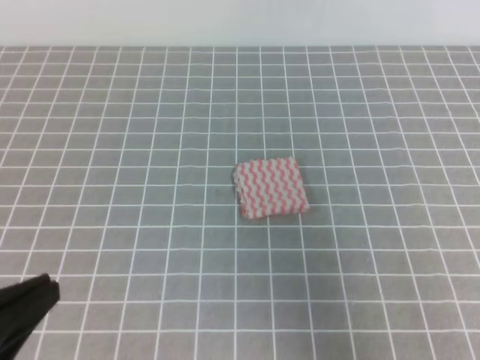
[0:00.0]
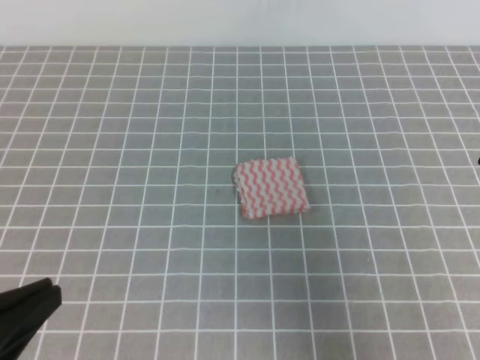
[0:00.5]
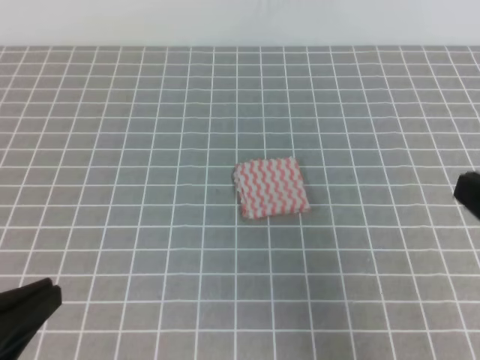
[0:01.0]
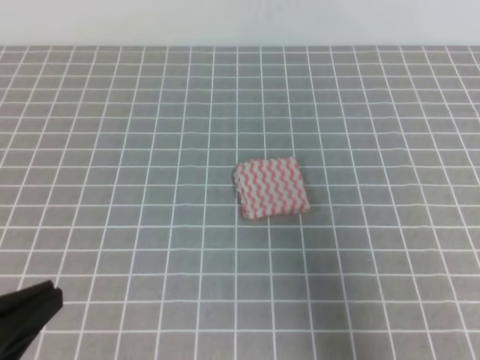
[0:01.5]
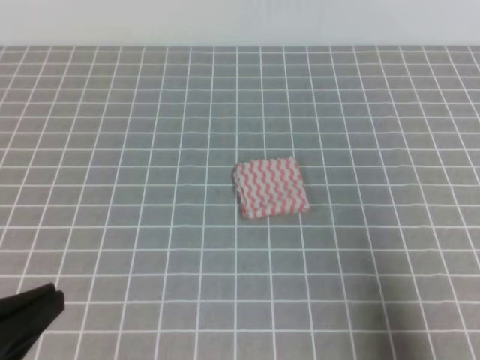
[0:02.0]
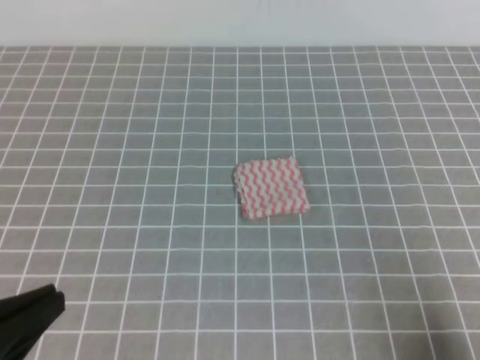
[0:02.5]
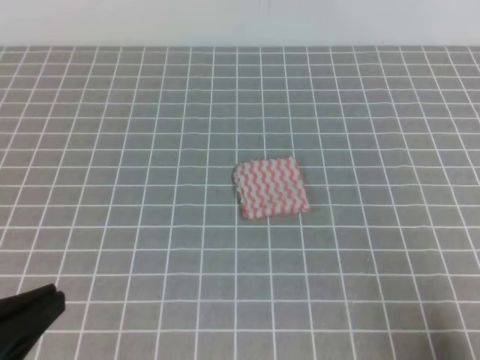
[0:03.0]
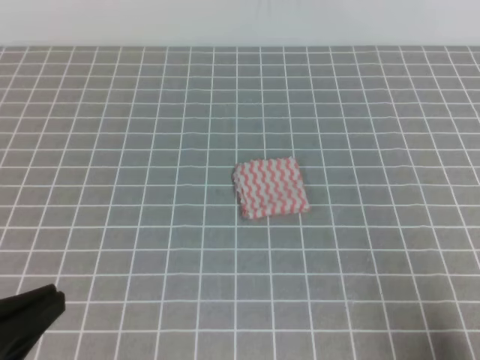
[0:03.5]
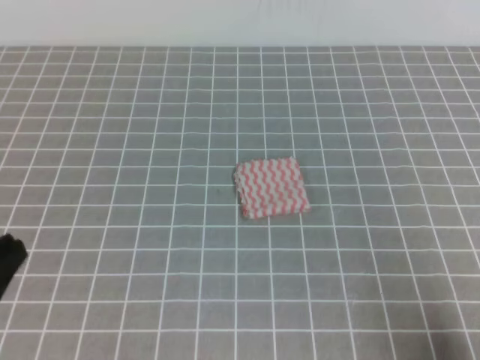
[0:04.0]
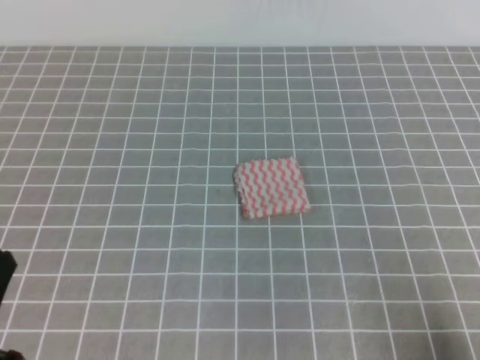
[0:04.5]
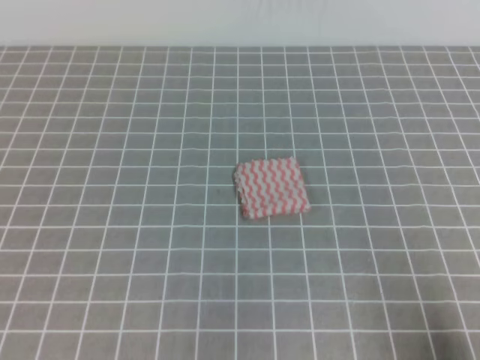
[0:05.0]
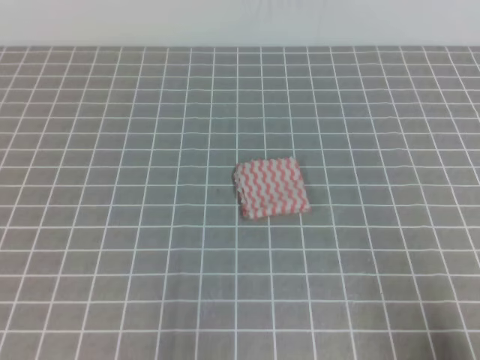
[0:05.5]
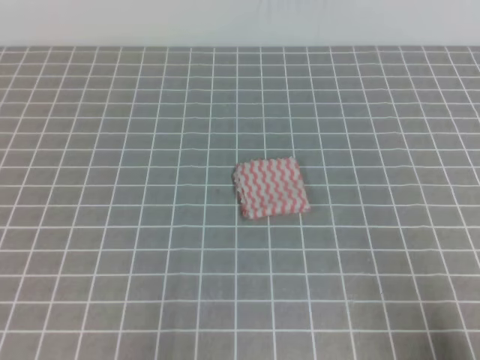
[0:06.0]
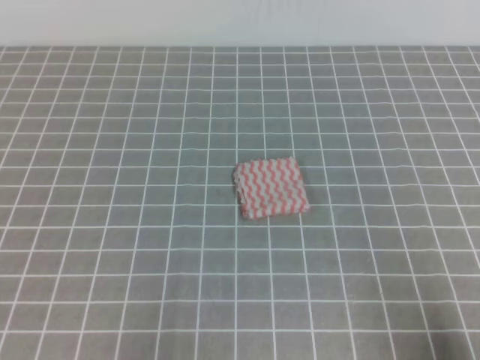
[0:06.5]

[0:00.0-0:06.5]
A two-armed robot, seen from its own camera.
Step, 0.0 to 6.5 s: Fold the towel.
0.0 to 2.0 s: The right gripper is displaced downward, backward and to the right by about 10 cm.
2.0 to 4.5 s: The right gripper heads downward, covering approximately 10 cm; the left gripper changes place by approximately 5 cm.

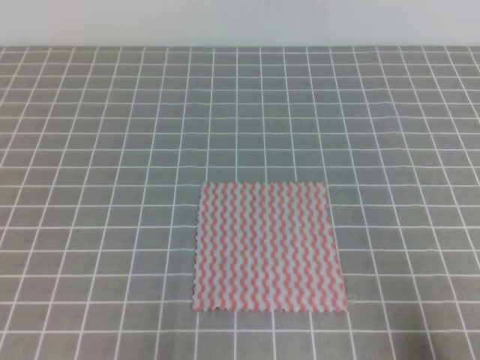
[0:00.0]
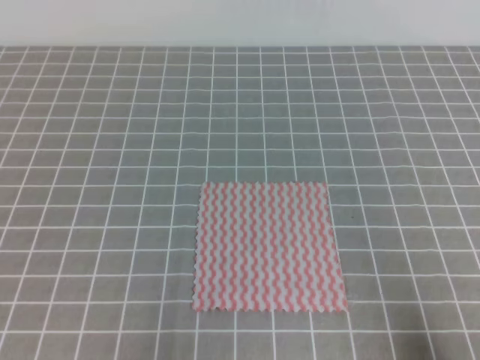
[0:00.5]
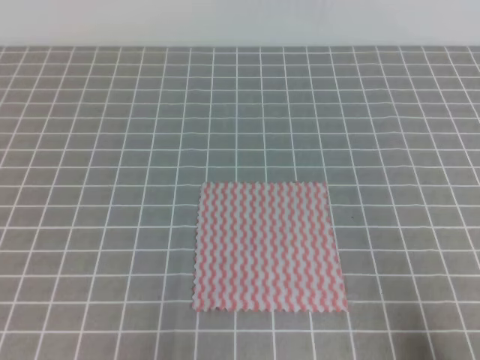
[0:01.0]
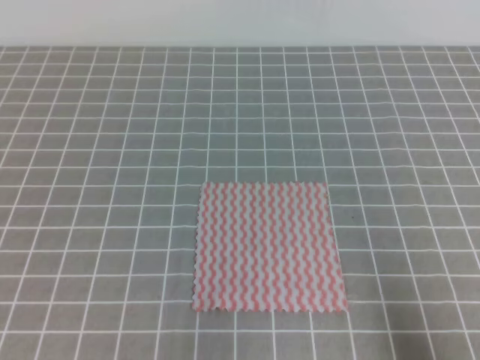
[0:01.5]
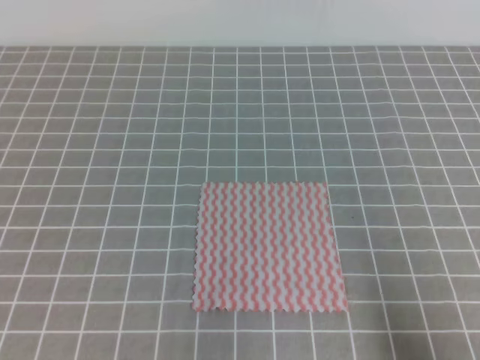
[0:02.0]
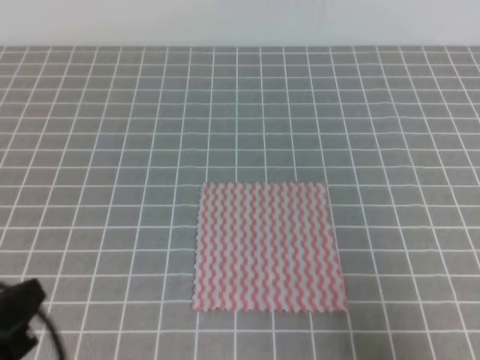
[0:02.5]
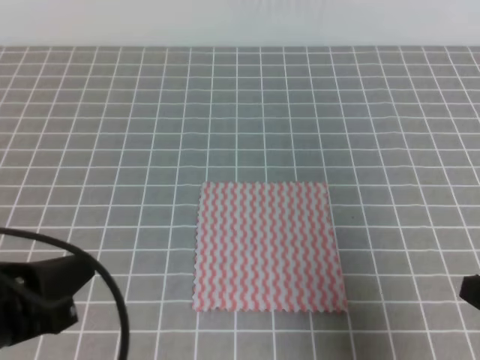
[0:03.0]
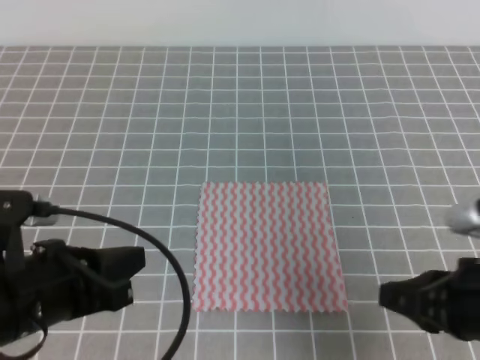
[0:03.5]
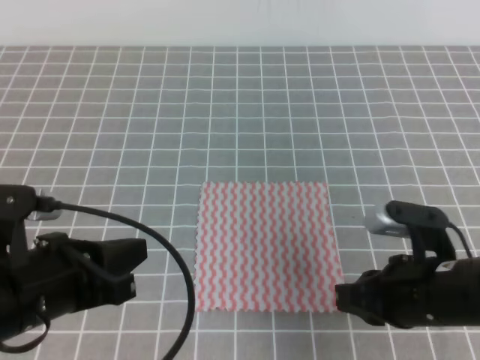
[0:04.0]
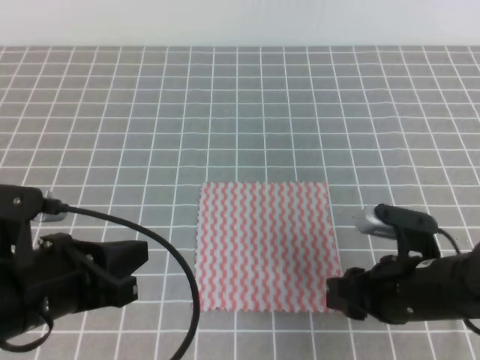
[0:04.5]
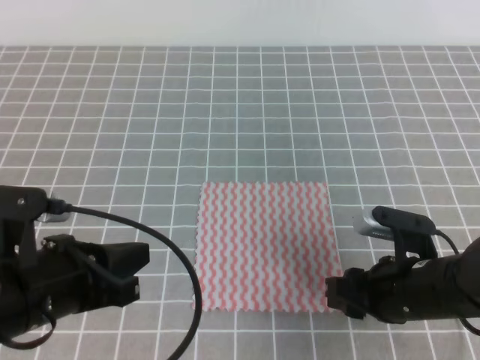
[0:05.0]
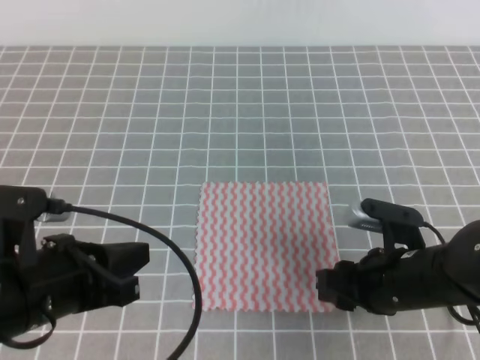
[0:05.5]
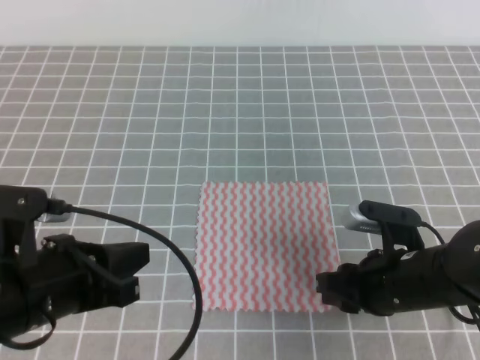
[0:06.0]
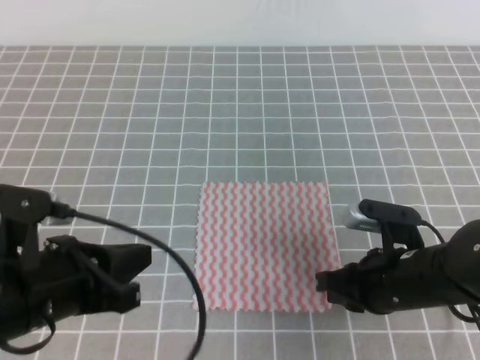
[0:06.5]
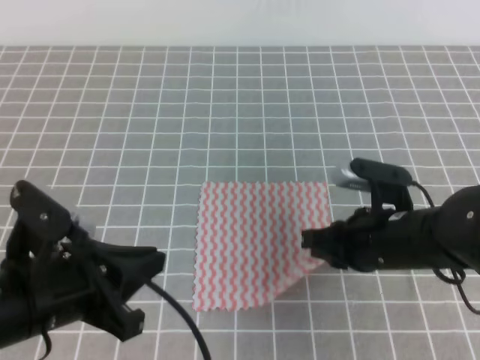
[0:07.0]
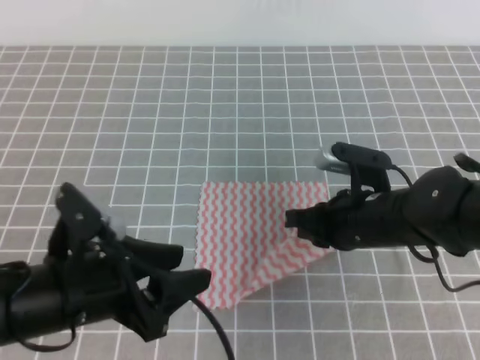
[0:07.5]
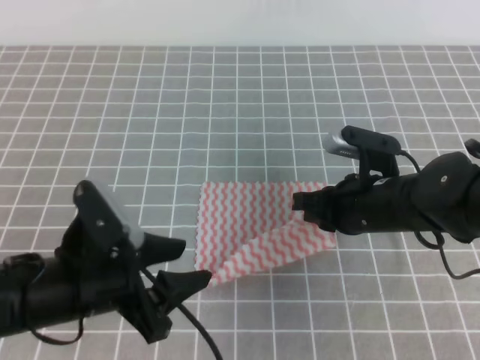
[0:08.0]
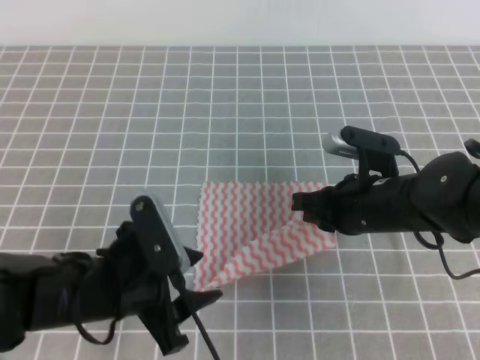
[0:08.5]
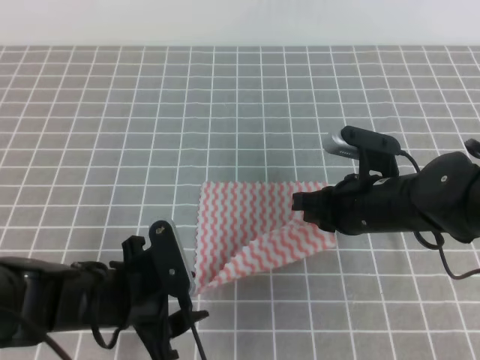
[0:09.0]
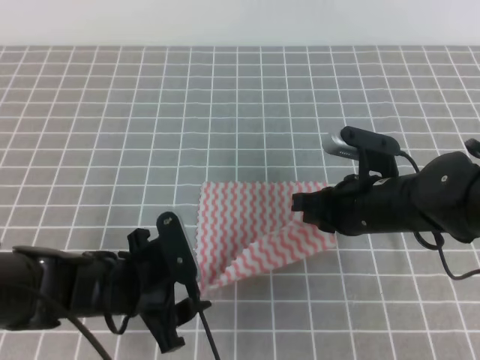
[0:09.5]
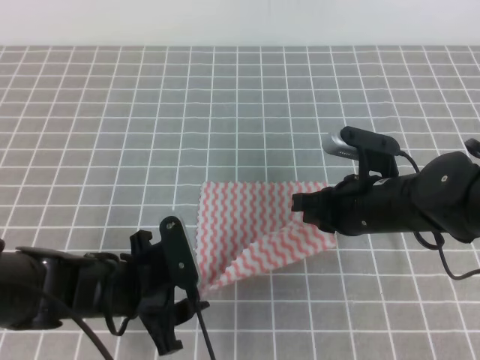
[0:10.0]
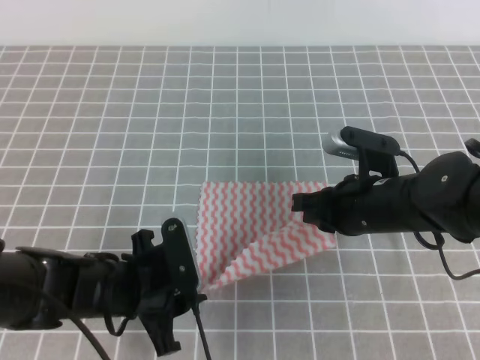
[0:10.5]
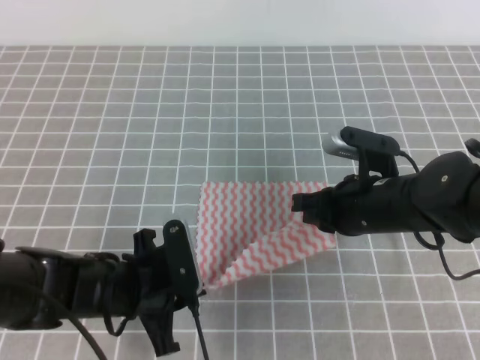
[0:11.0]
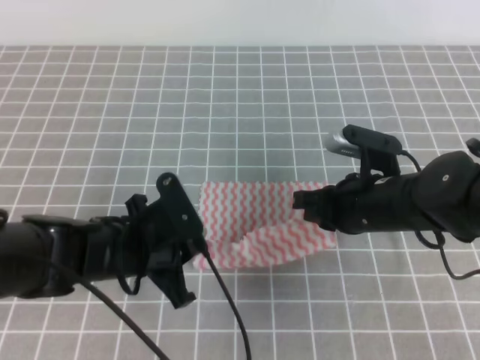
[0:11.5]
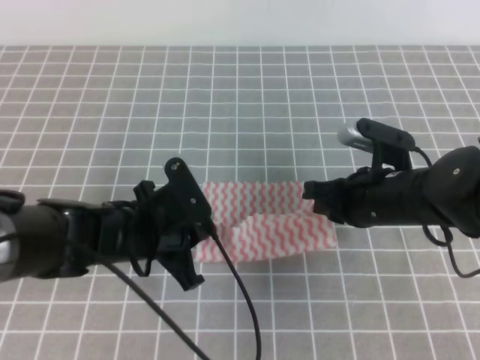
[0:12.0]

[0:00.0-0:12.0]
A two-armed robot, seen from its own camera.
Step, 0.0 to 10.5 s: Fold the towel upwards with the both gripper.
2.0 to 4.0 s: The right gripper heads forward and to the left, covering roughly 20 cm; the left gripper heads forward and to the right, covering some 15 cm.
4.0 to 6.0 s: The right gripper shifts by about 5 cm, and opens up.
6.0 to 8.0 s: The right gripper travels forward by some 5 cm, and closes its fingers, while the left gripper opens.
8.0 to 10.0 s: The left gripper goes some 5 cm downward.
10.0 to 12.0 s: The left gripper moves approximately 5 cm, and closes its fingers.

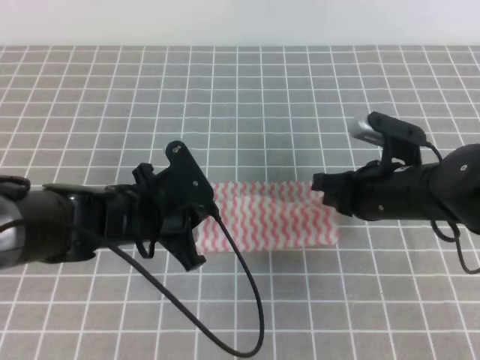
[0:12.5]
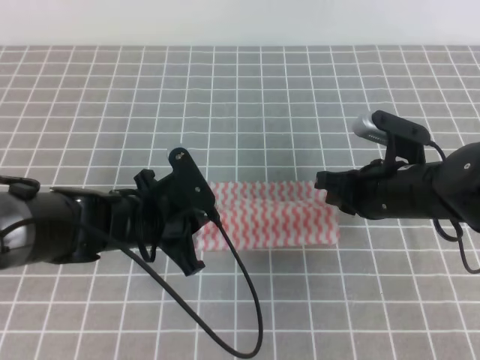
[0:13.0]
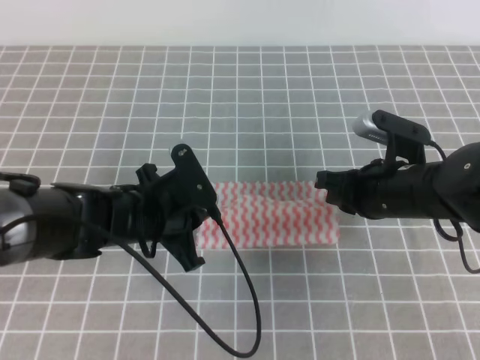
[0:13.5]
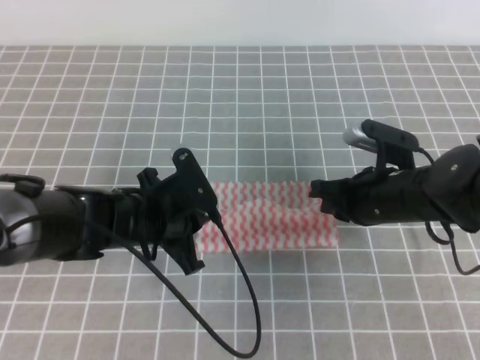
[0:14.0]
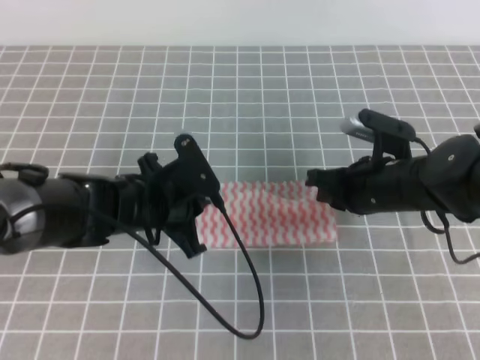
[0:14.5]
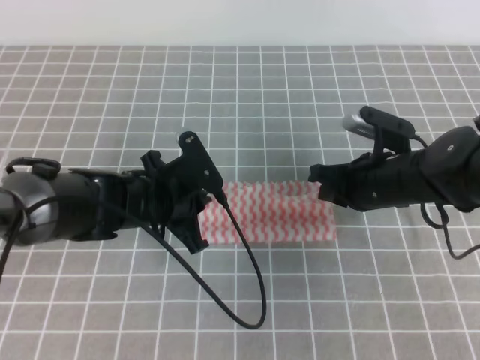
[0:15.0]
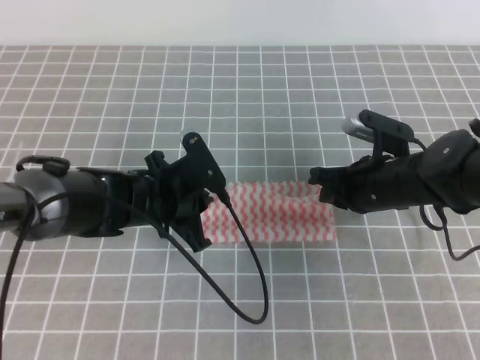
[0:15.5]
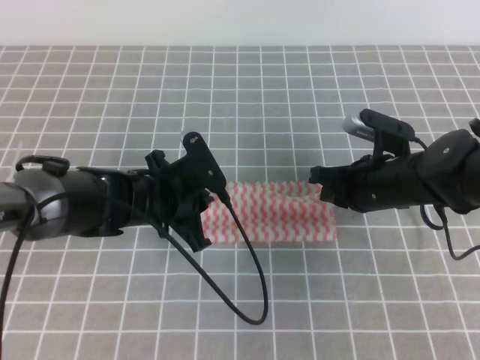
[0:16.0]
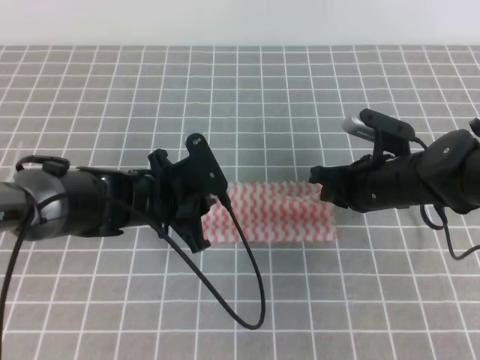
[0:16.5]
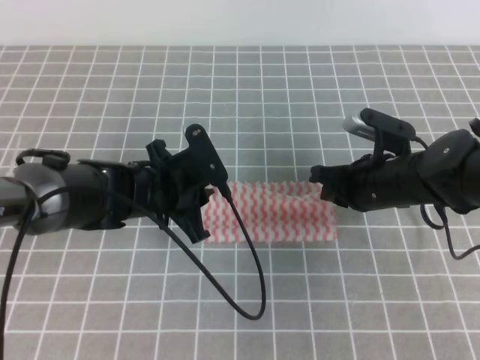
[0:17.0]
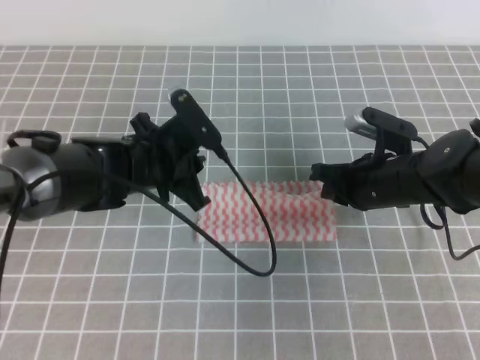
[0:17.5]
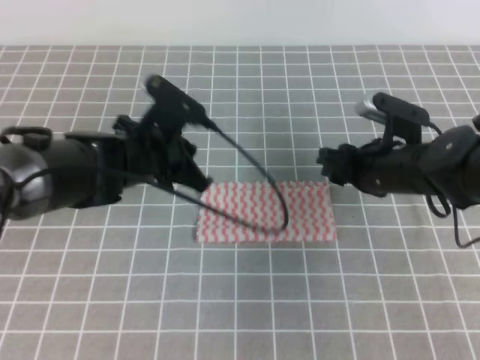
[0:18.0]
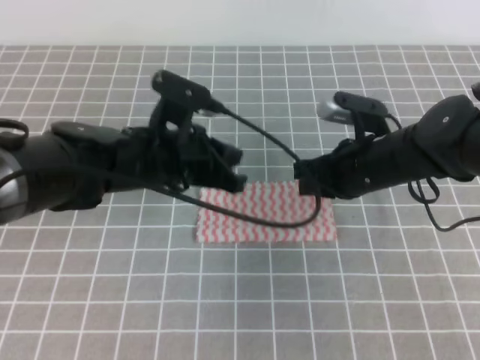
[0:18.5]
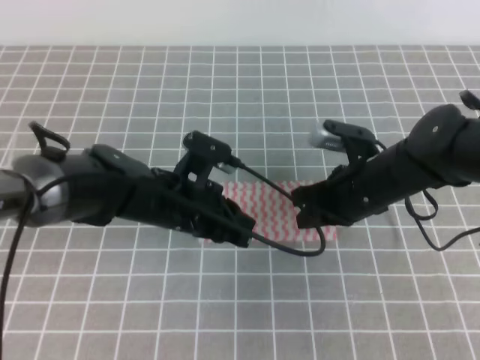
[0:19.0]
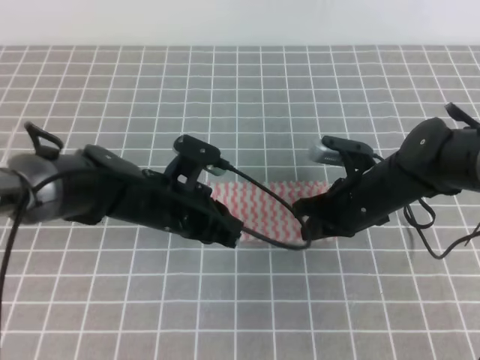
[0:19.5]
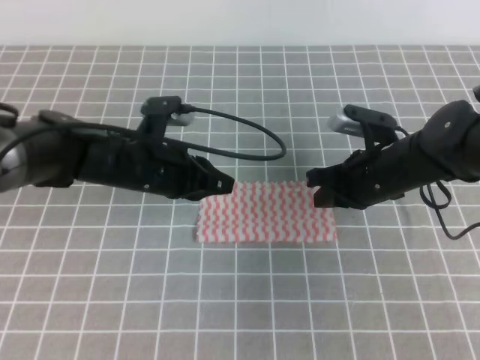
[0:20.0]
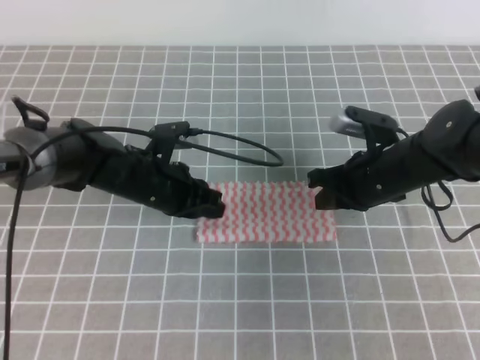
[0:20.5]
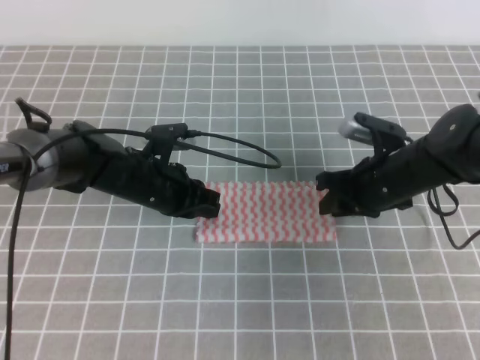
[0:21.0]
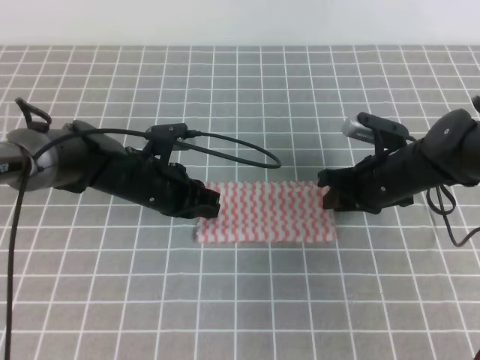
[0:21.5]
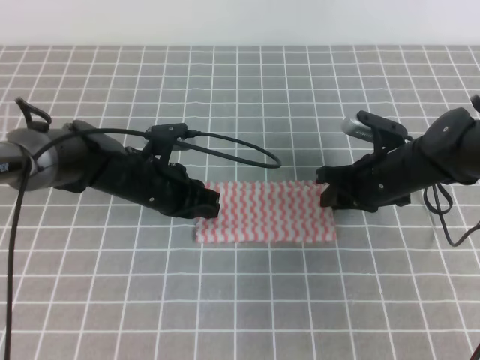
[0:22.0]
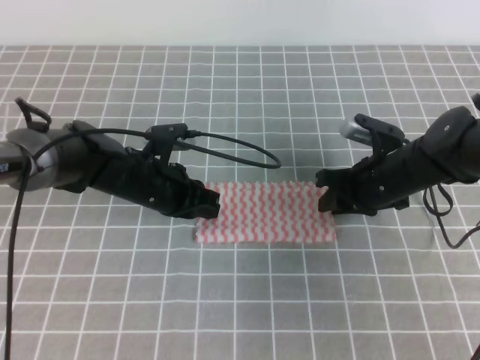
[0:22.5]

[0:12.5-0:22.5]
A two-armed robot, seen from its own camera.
Step, 12.5 to 16.5 s: Fold the towel from right to left with the right gripper.
Step, 17.0 to 18.5 s: Tidy up the towels.
12.5 to 16.5 s: The grippers move only a little.
16.5 to 18.5 s: The left gripper is displaced upward by roughly 10 cm. Meanwhile the right gripper opens and closes again.
18.5 to 20.5 s: The left gripper travels downward by some 5 cm.
20.5 to 22.5 s: The right gripper opens its fingers.
